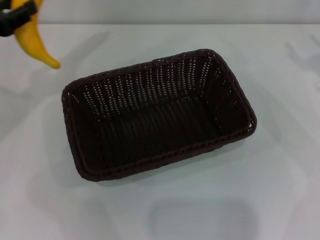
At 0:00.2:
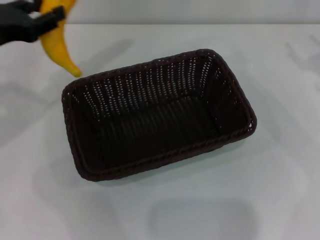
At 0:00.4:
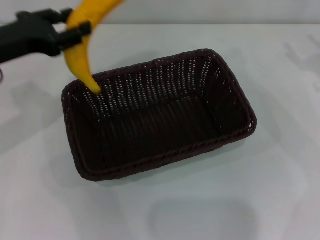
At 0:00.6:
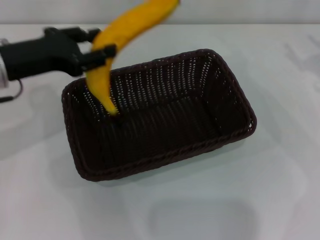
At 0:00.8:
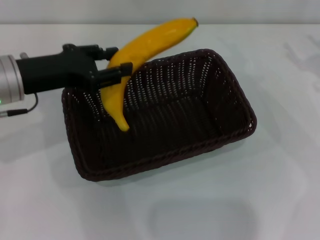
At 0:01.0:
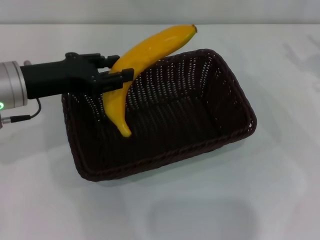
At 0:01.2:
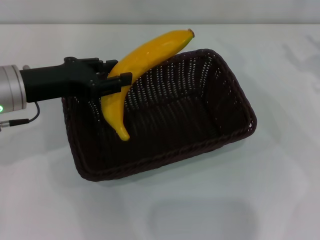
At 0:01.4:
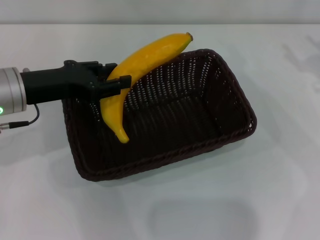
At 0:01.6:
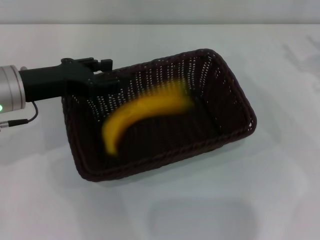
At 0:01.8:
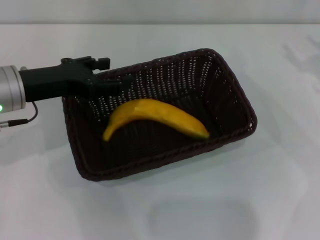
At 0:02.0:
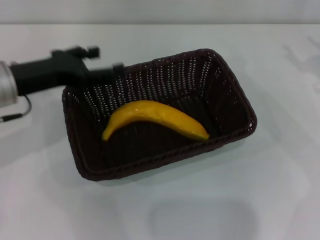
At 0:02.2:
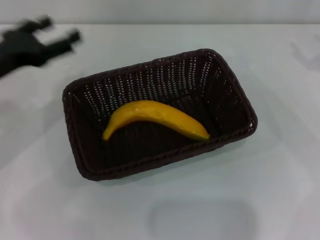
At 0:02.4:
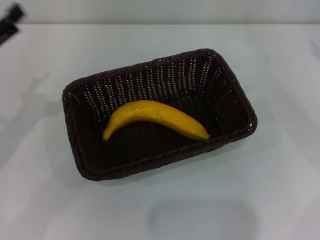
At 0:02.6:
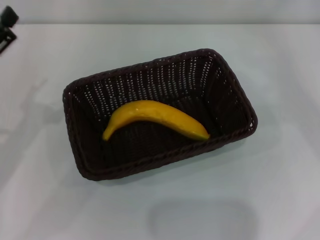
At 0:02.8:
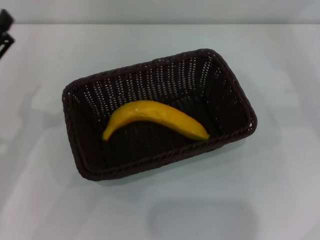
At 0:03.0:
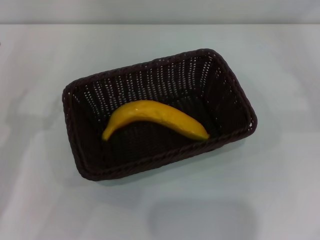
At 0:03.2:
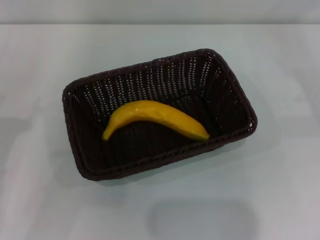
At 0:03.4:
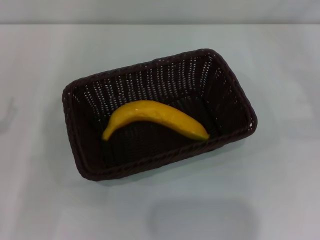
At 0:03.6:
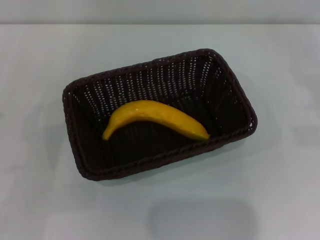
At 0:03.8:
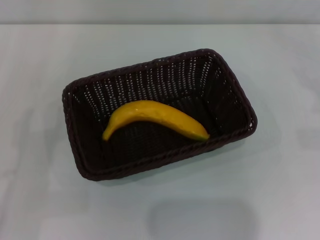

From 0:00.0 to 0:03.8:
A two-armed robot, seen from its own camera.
Step, from 0:00.0 to 0:01.6: Place the banana into the dark basket with the left gripper.
From 0:00.0 to 0:01.2: The left gripper heads to the right, covering approximately 10 cm.
From 0:01.2 to 0:02.6: The left gripper travels backward and to the left by approximately 10 cm, and opens up, while the right gripper heads to the right, covering roughly 5 cm.
From 0:02.6 to 0:03.8: The left gripper is displaced to the left and backward by approximately 10 cm.

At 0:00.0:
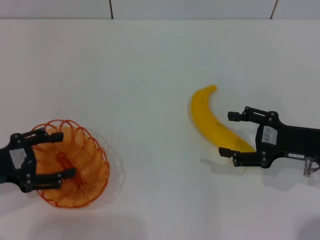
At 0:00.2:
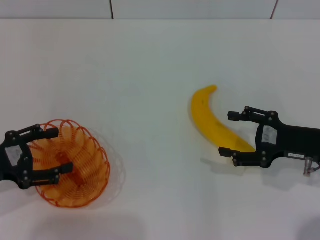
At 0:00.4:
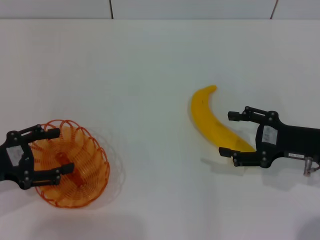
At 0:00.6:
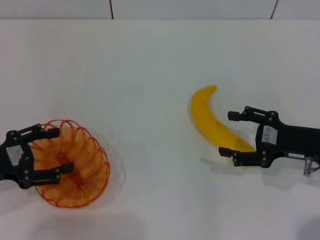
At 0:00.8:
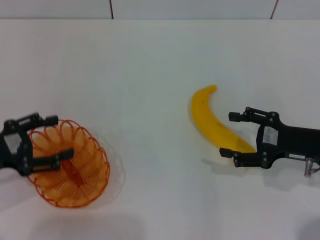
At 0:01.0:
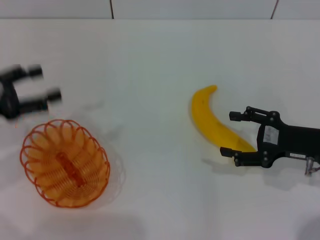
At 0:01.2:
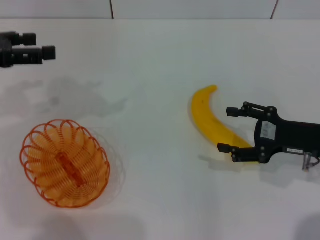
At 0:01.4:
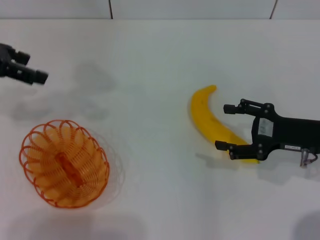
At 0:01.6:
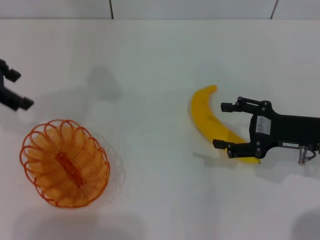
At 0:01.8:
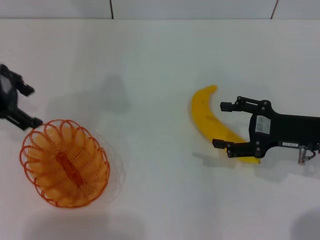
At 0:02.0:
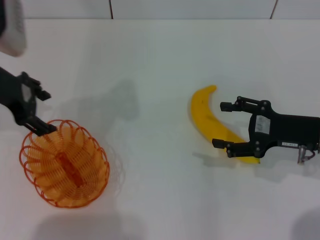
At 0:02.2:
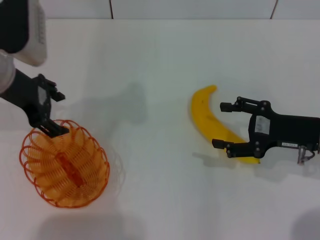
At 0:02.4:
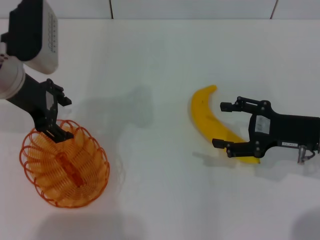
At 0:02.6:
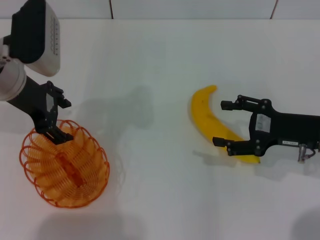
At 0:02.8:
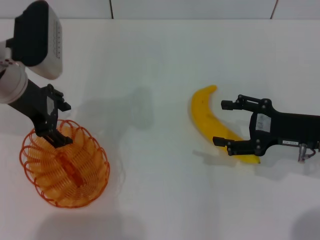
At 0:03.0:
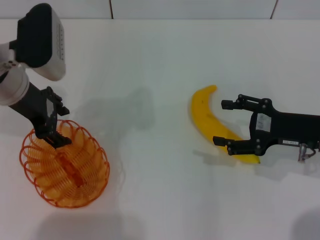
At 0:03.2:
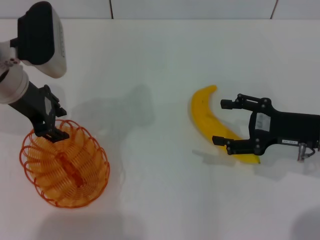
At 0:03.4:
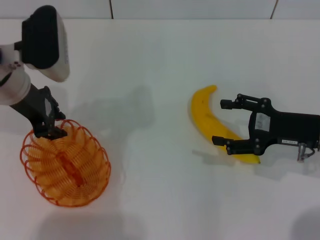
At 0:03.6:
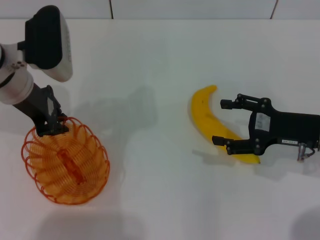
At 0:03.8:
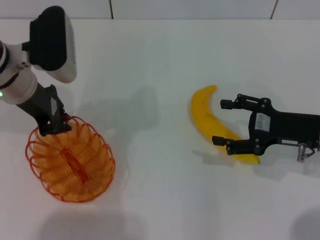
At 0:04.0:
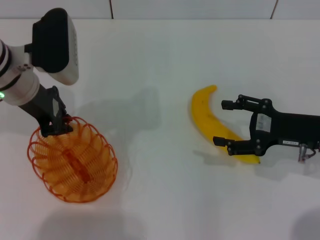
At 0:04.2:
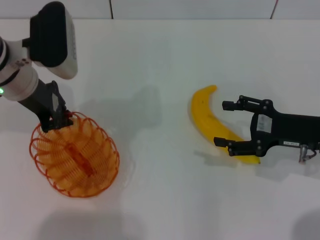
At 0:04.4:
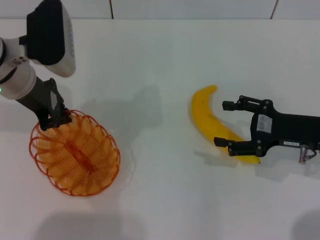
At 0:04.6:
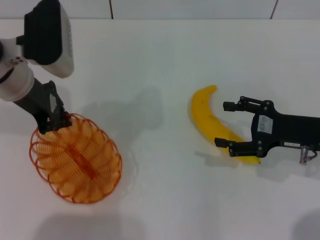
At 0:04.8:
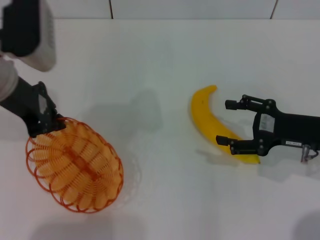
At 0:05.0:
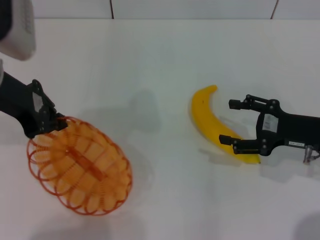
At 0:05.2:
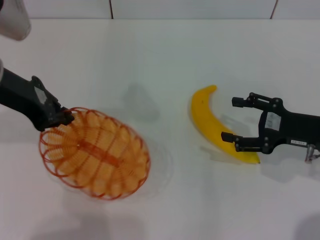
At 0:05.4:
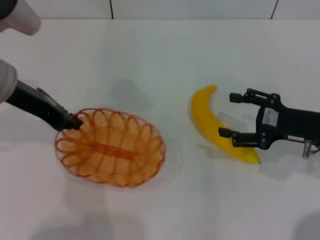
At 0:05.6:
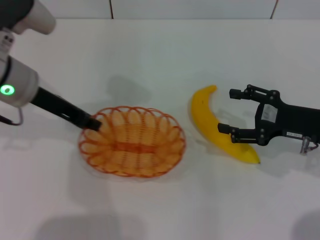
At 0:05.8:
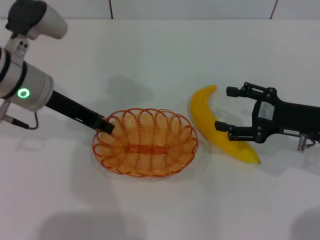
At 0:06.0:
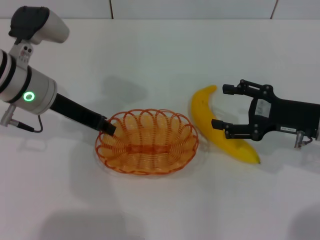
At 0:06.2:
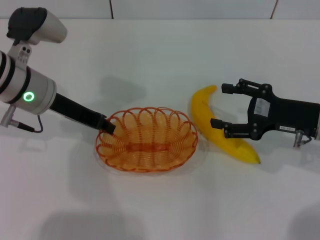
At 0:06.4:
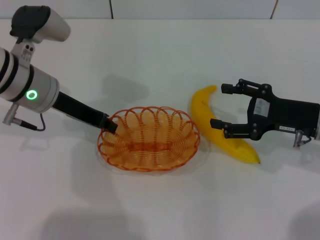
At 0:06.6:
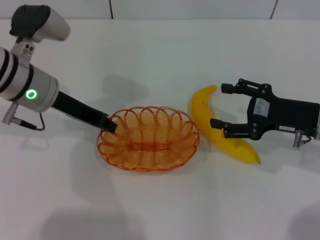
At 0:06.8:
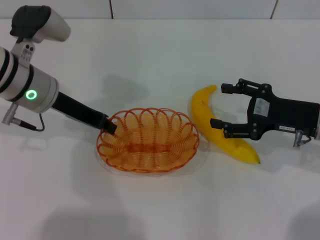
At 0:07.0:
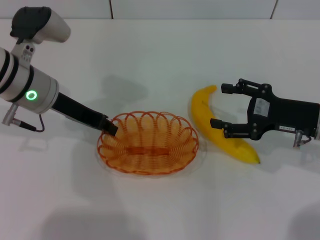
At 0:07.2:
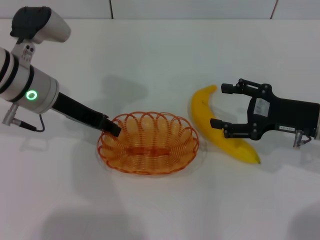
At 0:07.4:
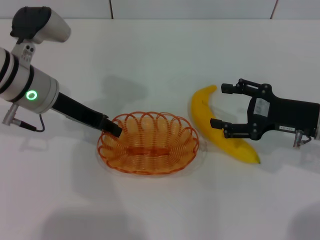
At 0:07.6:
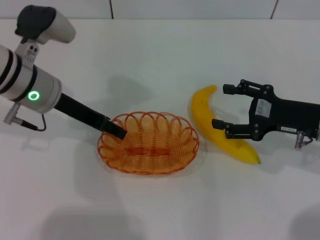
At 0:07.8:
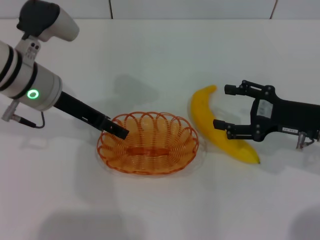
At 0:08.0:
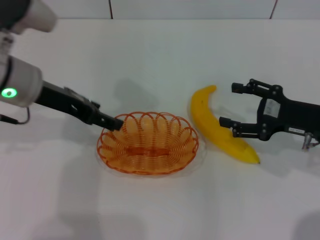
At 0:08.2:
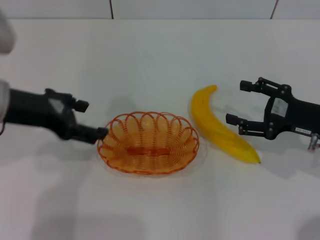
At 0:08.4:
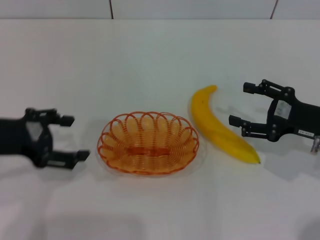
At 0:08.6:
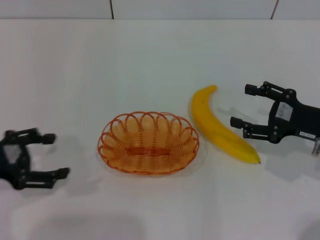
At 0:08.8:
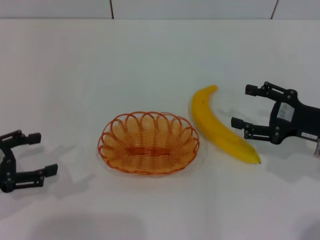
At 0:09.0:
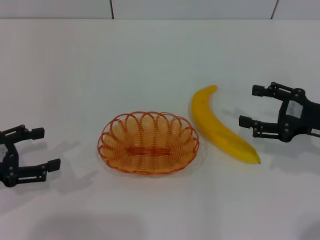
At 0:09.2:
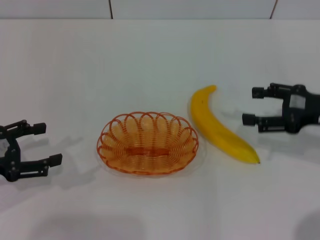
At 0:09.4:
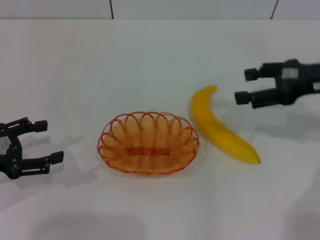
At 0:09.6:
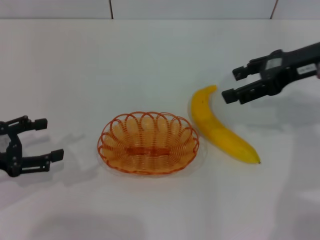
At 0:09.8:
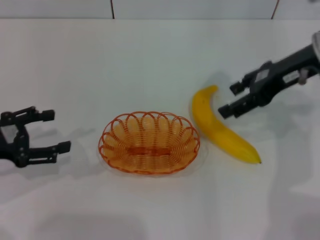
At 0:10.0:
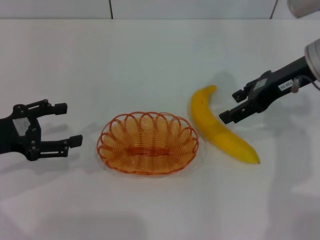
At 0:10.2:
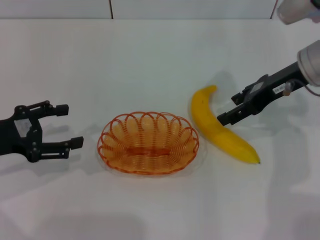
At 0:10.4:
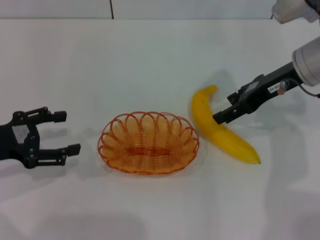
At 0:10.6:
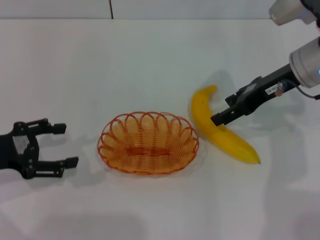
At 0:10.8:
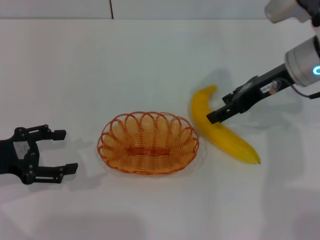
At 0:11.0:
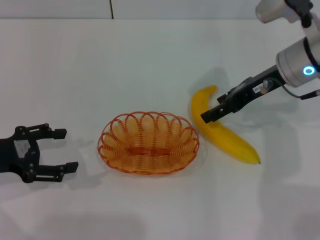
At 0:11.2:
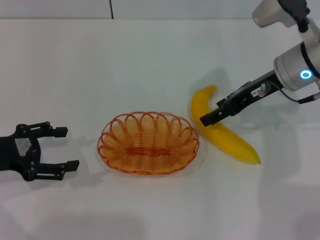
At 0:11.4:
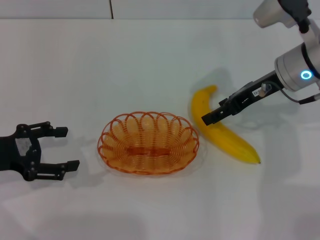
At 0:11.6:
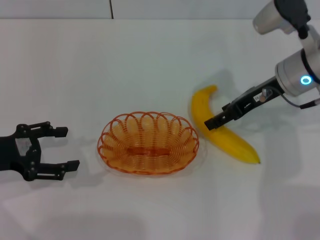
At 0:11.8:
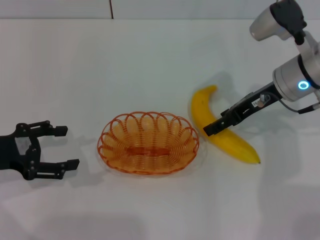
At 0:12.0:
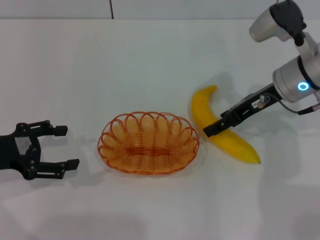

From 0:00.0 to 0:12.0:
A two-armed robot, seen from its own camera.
Step, from 0:00.0 to 0:05.0: Pick up the basket with the left gripper.
Step, from 0:05.2 to 0:08.0: Place the basket in the center of view with the left gripper.
From 0:00.0 to 0:01.6: The left gripper moves upward and forward, about 20 cm.
From 0:01.6 to 0:03.0: The left gripper moves to the right and downward, roughly 10 cm.
From 0:03.0 to 0:04.4: The left gripper closes.
From 0:06.0 to 0:07.6: The left gripper opens up.
From 0:07.6 to 0:09.0: The left gripper shifts approximately 20 cm to the left and backward, and opens up.
From 0:09.0 to 0:10.4: The right gripper is displaced forward, to the left and upward by about 15 cm.
From 0:10.4 to 0:12.0: The grippers move only a little.

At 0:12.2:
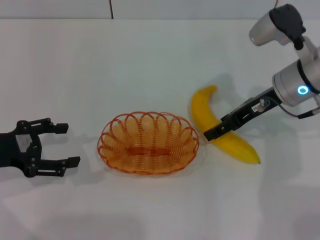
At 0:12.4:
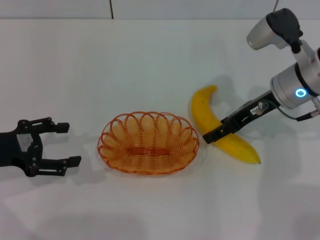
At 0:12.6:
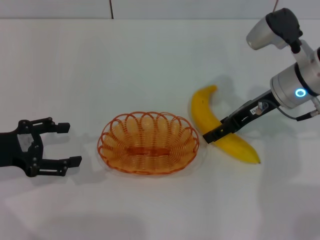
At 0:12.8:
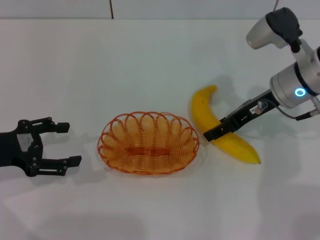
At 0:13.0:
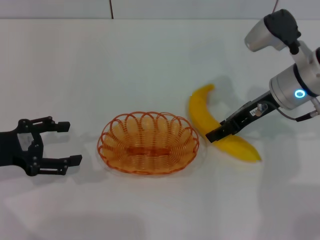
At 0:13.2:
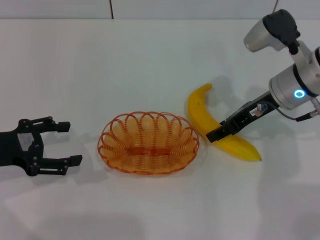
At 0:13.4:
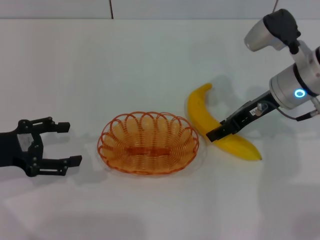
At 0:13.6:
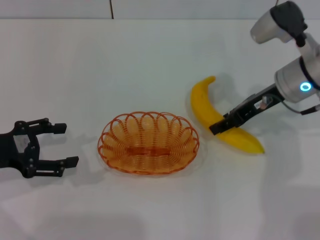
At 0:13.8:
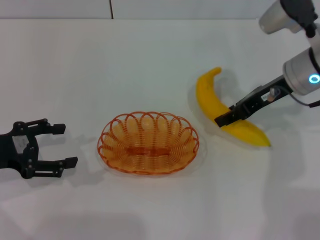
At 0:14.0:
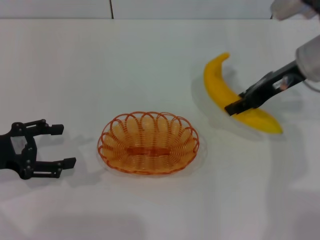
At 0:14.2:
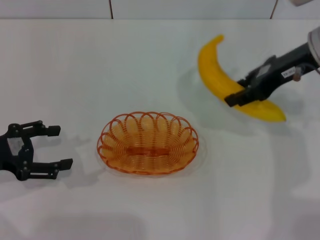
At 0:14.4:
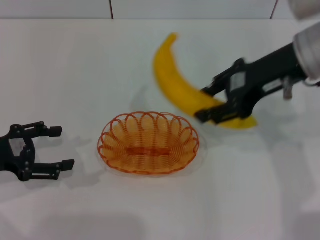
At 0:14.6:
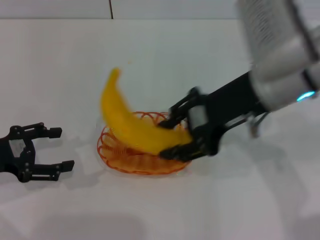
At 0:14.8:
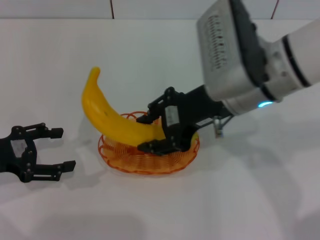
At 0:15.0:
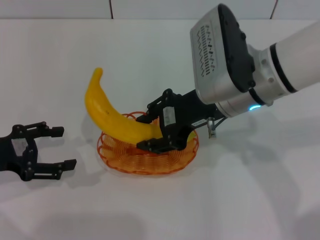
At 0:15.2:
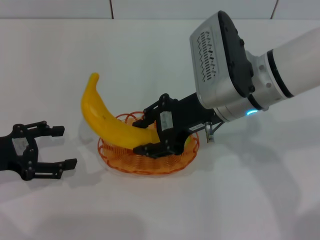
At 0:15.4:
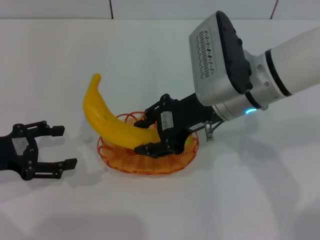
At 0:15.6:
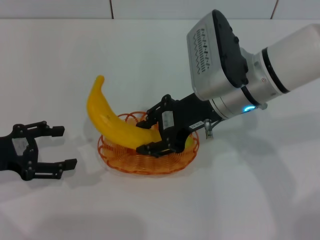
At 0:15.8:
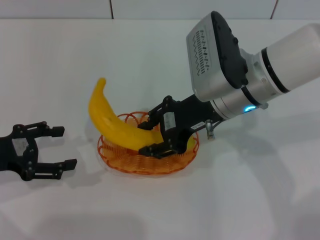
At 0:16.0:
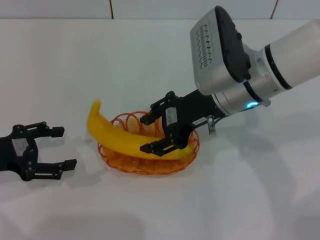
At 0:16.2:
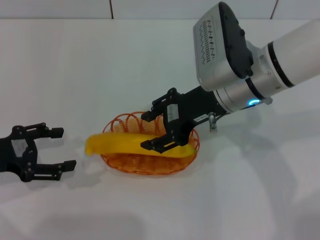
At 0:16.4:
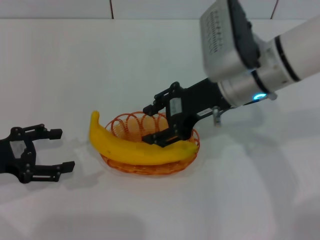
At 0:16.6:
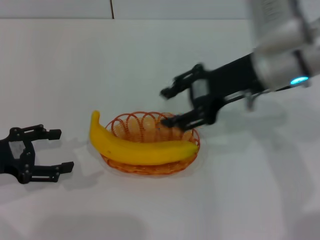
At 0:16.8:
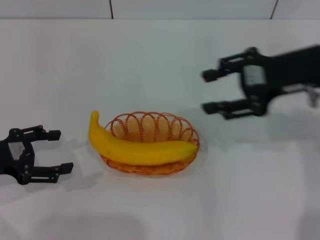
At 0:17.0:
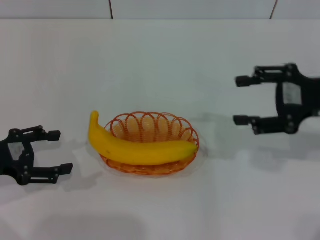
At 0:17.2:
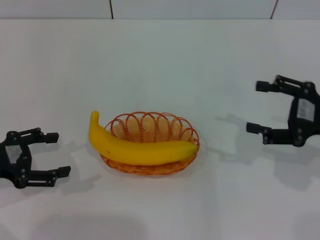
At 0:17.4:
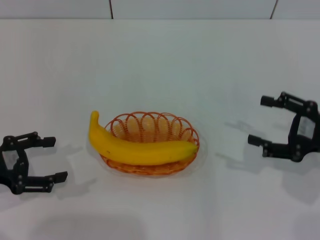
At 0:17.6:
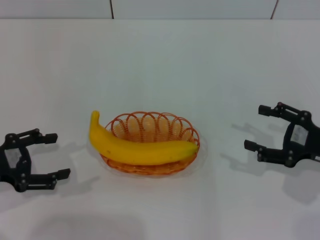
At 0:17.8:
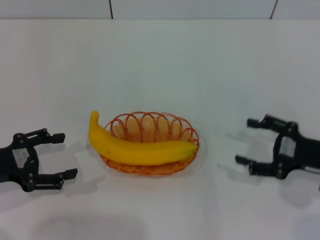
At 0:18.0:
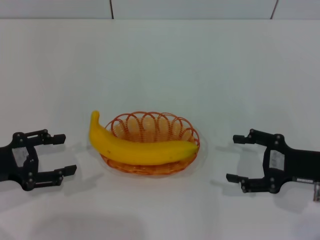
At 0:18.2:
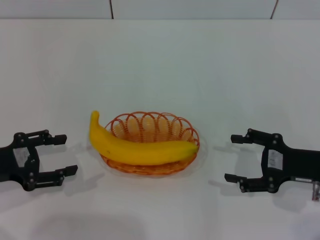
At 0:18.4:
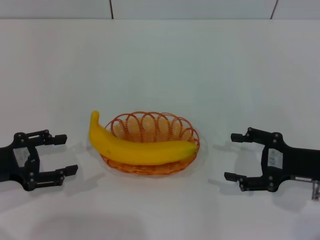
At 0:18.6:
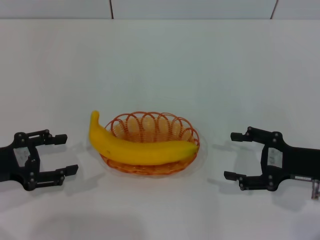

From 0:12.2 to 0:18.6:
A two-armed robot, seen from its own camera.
Step, from 0:14.2 to 0:16.4: Place the banana into the basket with the right gripper.
From 0:12.2 to 0:13.8: The right gripper closes its fingers.
From 0:13.8 to 0:15.4: The right gripper travels to the left and backward by roughly 10 cm.
From 0:15.4 to 0:17.0: The right gripper heads to the right, covering some 20 cm, and opens.
From 0:17.0 to 0:18.6: The right gripper goes approximately 10 cm downward and backward, and opens its fingers.
